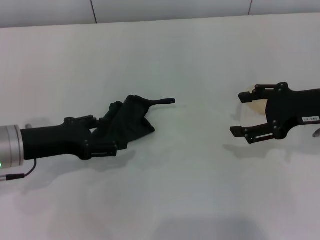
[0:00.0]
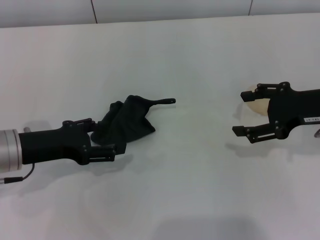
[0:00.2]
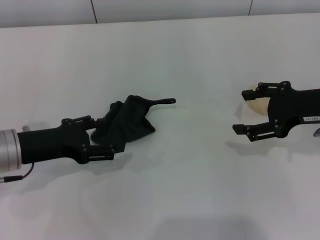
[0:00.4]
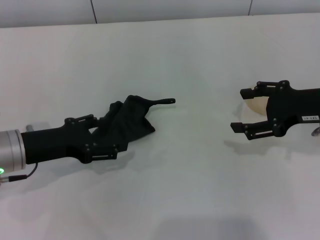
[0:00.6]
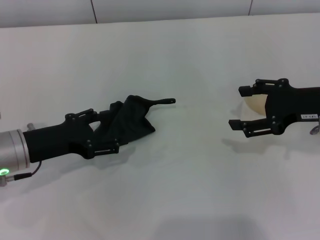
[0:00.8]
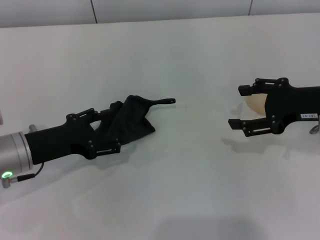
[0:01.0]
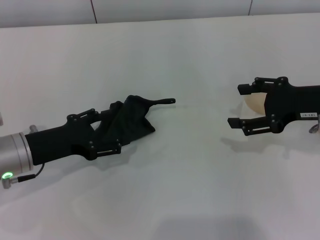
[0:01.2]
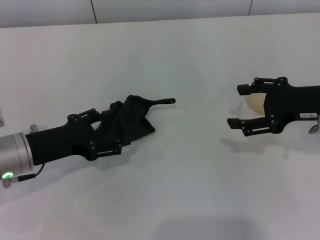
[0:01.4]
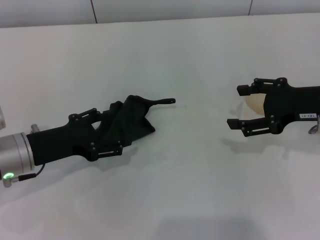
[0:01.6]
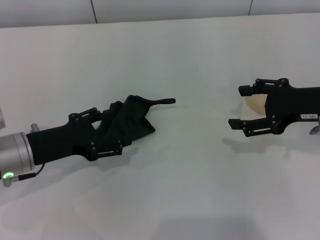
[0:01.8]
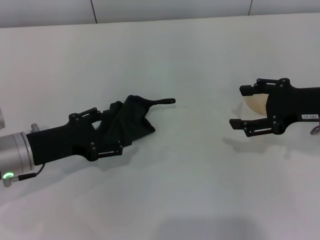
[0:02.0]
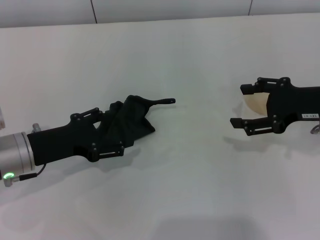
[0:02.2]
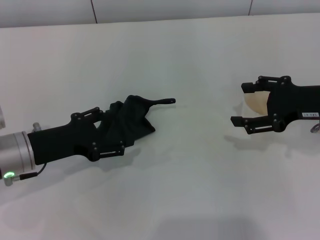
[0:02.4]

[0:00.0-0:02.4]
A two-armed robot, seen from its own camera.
0:00.0 to 0:01.2: The grippers make only small movements.
0:01.2 to 0:02.4: Both grippers stay put.
